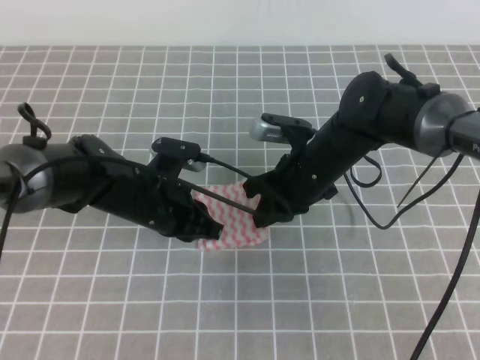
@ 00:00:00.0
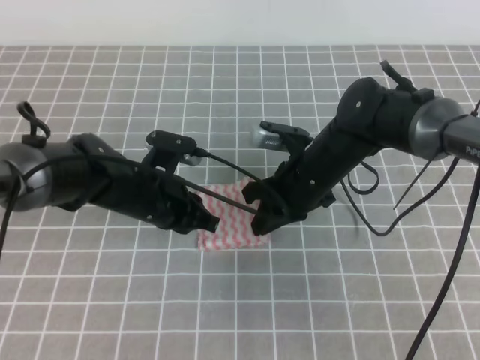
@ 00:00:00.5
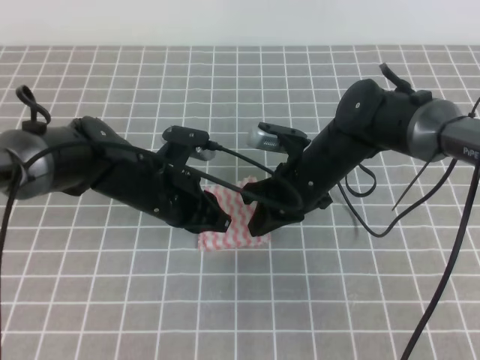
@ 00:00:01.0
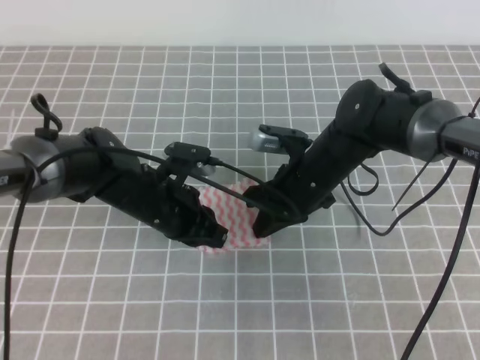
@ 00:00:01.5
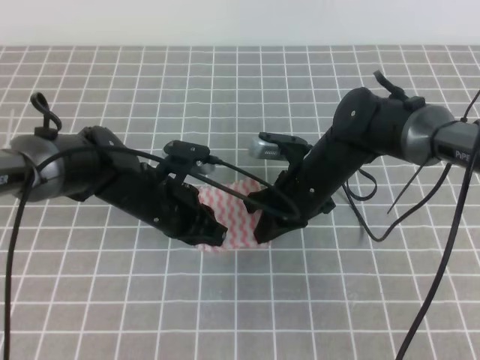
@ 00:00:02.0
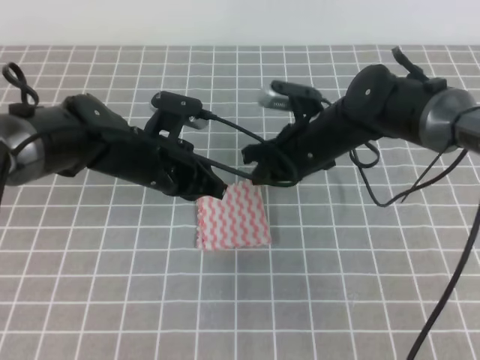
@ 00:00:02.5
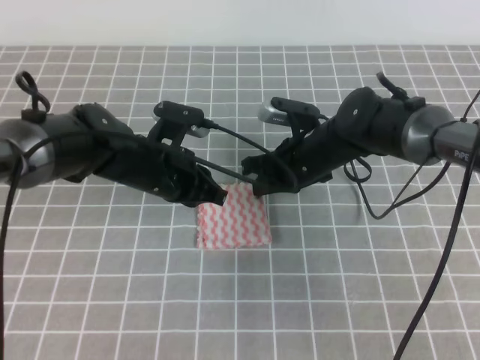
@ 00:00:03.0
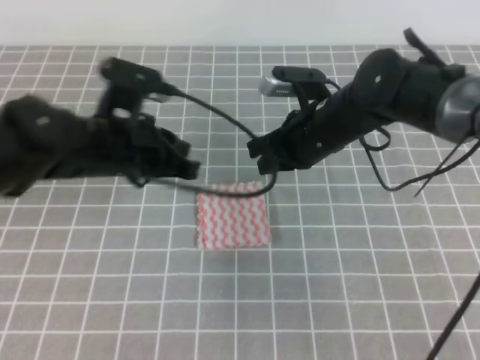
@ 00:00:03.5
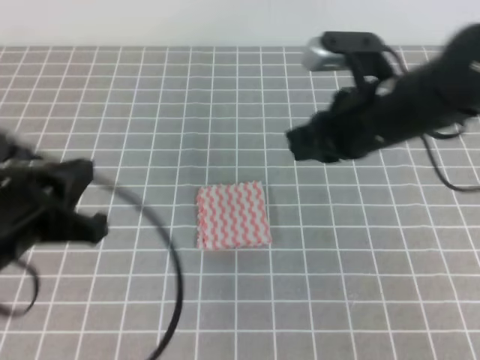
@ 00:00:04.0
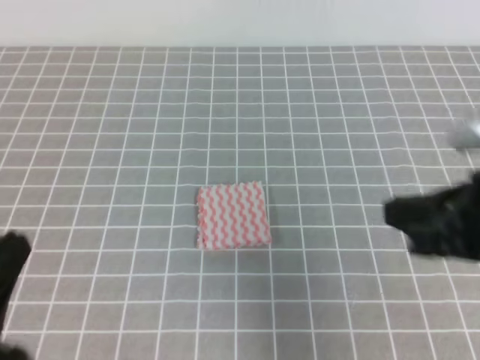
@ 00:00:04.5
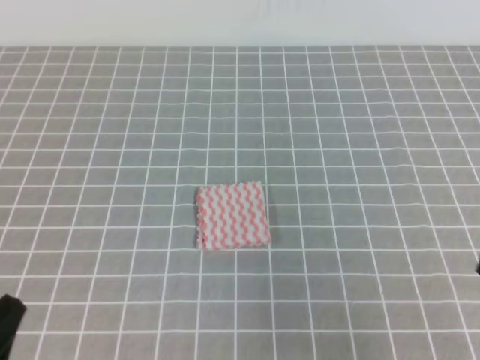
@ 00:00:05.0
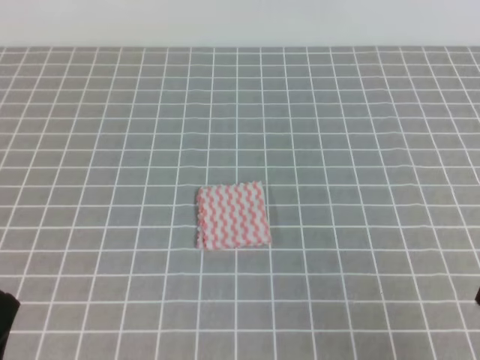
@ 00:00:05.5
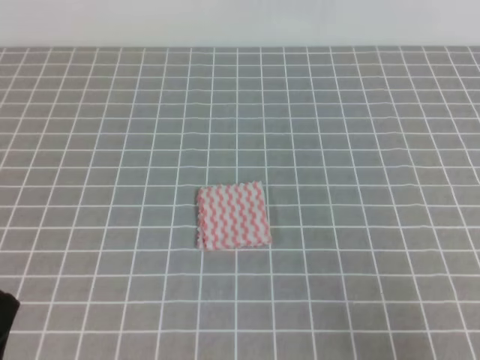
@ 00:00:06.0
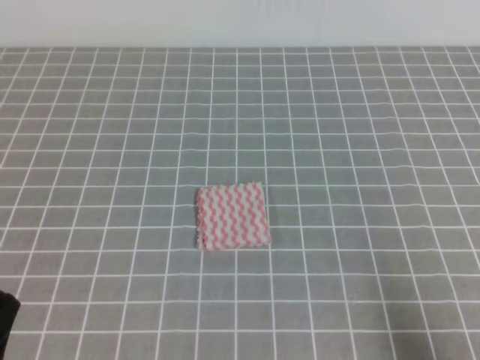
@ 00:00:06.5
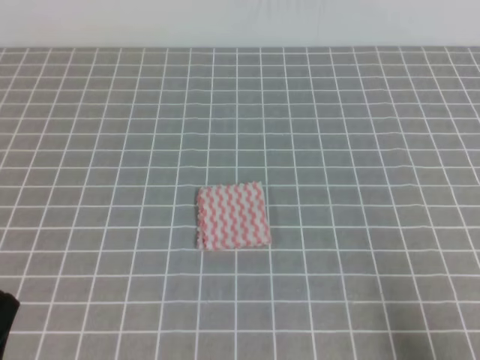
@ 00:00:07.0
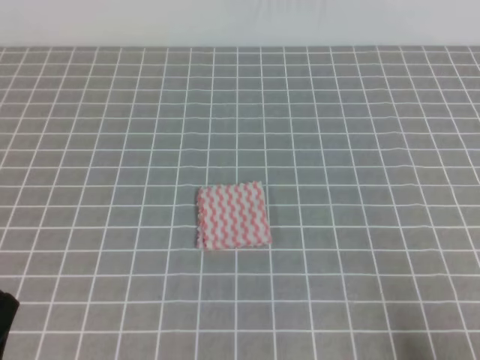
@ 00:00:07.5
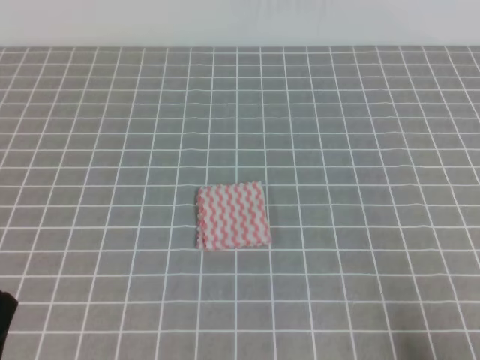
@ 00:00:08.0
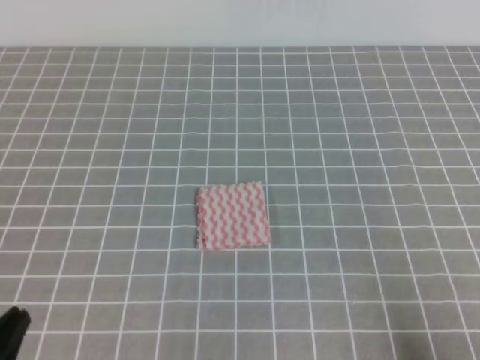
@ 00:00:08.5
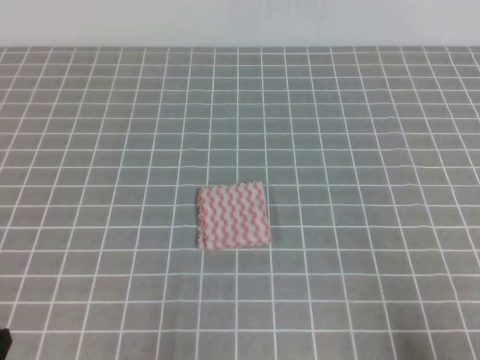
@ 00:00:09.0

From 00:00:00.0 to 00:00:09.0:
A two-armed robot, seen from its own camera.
Step, from 00:00:00.0 to 00:00:09.0: Fold the towel.
From 00:00:00.0 to 00:00:02.0: The grippers stay close to where they were, moving slightly.
From 00:00:02.0 to 00:00:04.5: The right gripper shifts roughly 25 cm backward, upward and to the right. Meanwhile the left gripper shifts approximately 30 cm backward, to the left and upward.
From 00:00:04.5 to 00:00:07.0: The right gripper moves downward, backward and to the right, approximately 20 cm, while the left gripper heads downward, covering roughly 5 cm.
